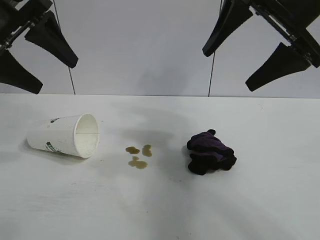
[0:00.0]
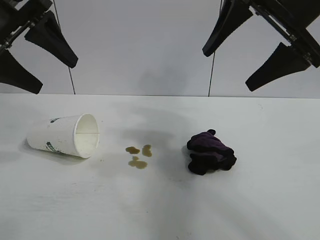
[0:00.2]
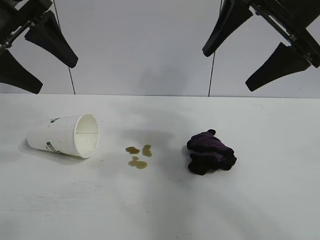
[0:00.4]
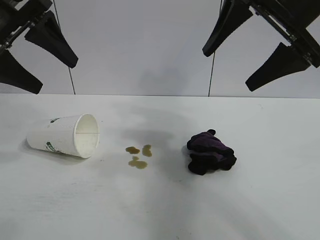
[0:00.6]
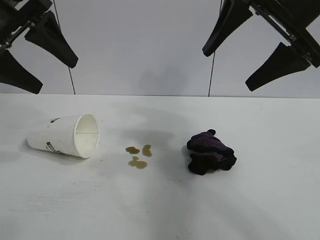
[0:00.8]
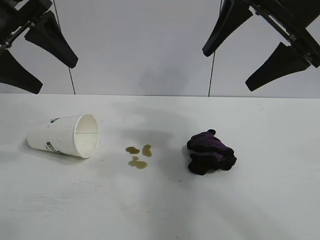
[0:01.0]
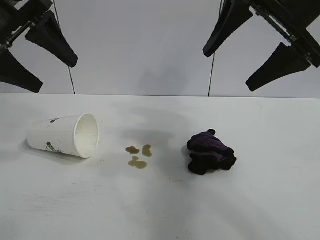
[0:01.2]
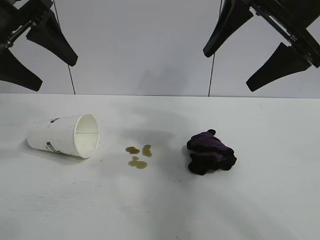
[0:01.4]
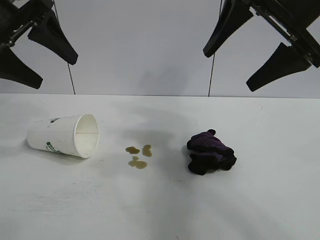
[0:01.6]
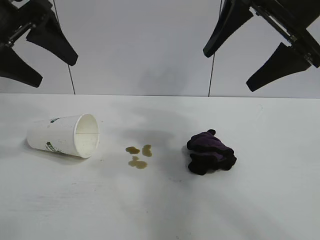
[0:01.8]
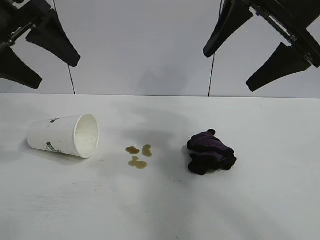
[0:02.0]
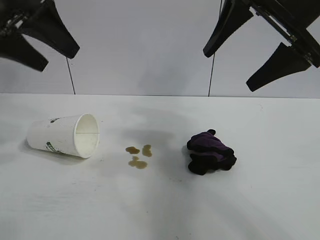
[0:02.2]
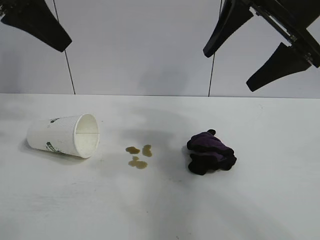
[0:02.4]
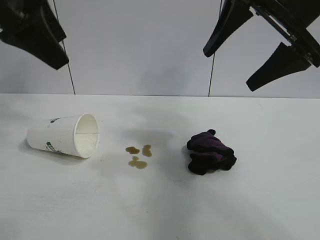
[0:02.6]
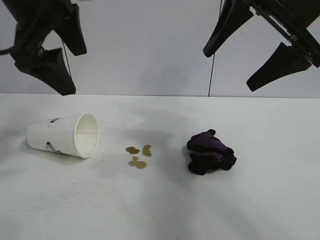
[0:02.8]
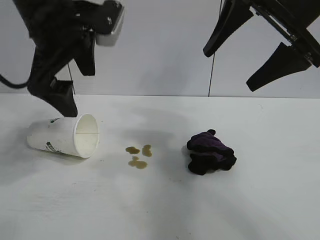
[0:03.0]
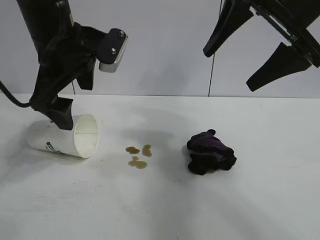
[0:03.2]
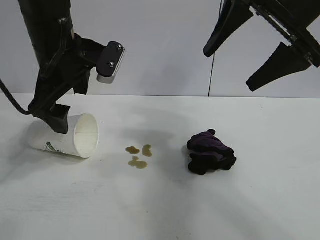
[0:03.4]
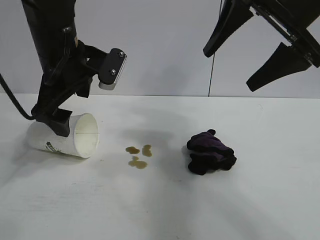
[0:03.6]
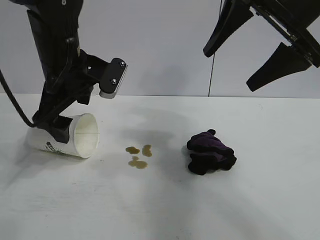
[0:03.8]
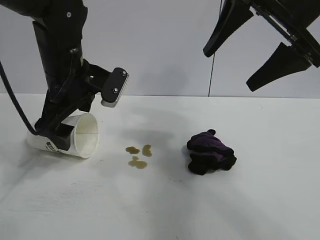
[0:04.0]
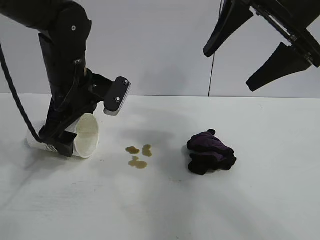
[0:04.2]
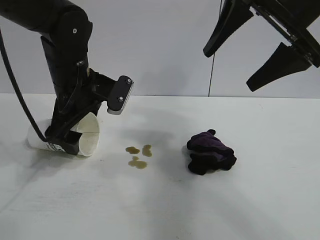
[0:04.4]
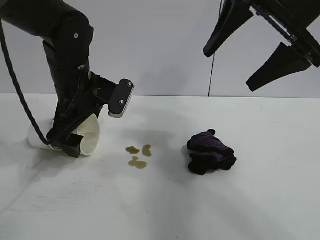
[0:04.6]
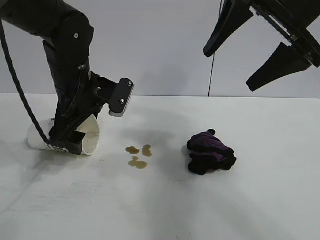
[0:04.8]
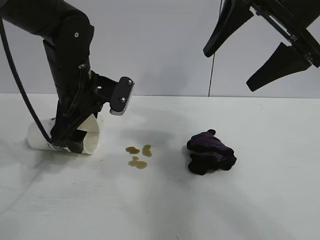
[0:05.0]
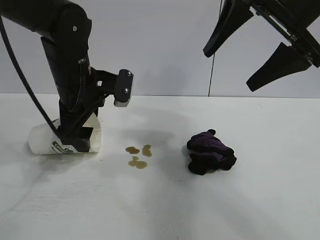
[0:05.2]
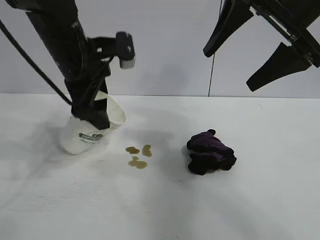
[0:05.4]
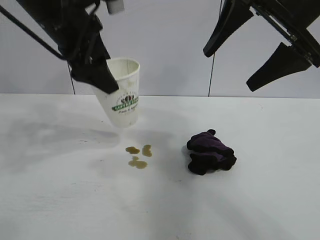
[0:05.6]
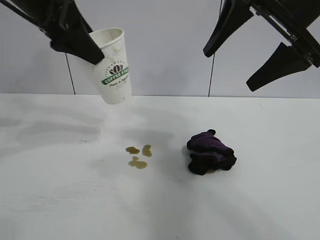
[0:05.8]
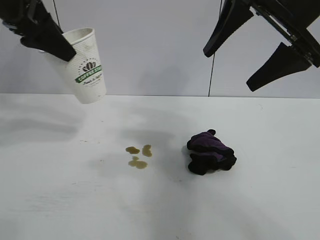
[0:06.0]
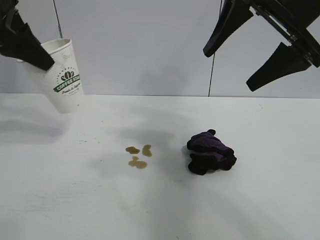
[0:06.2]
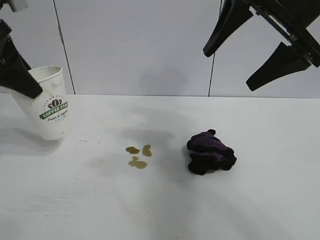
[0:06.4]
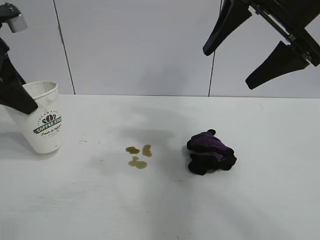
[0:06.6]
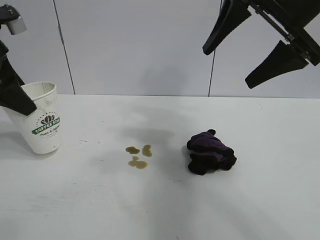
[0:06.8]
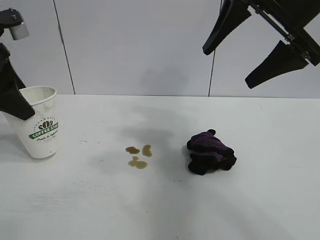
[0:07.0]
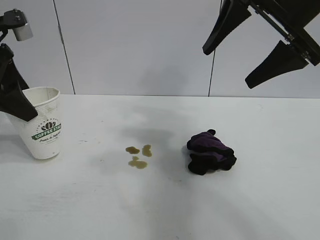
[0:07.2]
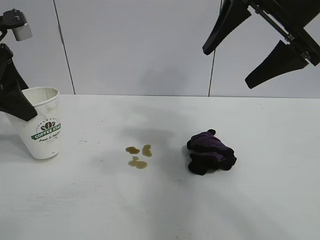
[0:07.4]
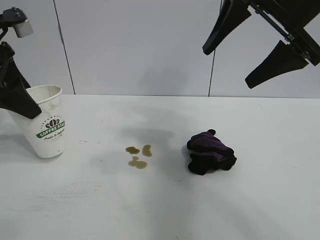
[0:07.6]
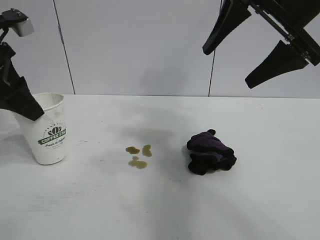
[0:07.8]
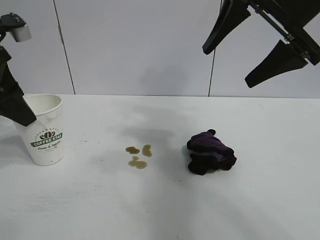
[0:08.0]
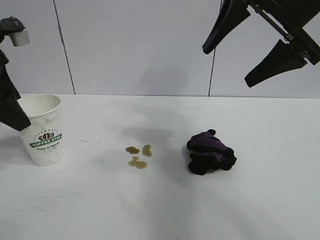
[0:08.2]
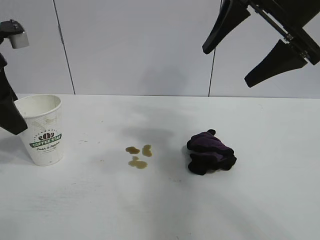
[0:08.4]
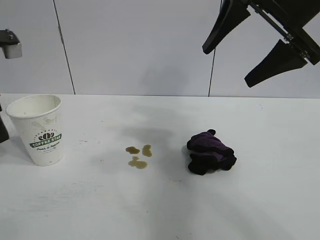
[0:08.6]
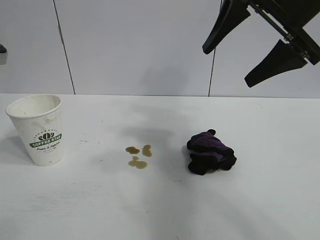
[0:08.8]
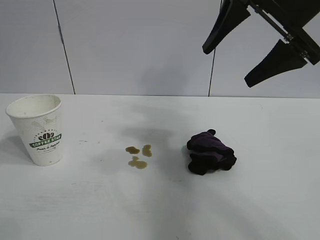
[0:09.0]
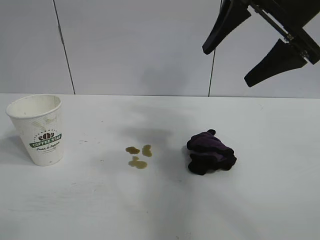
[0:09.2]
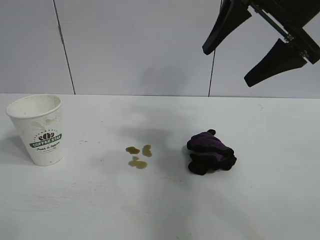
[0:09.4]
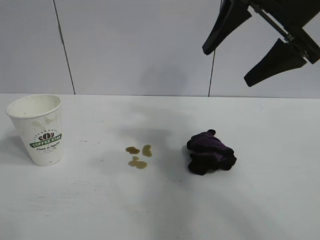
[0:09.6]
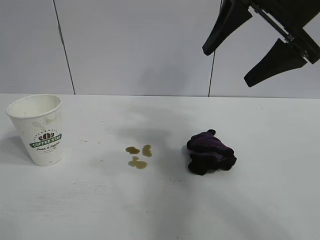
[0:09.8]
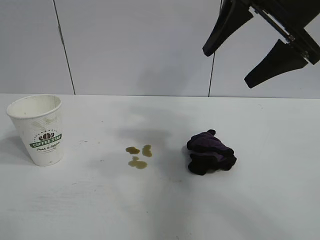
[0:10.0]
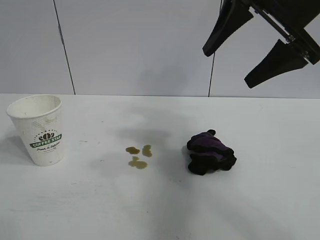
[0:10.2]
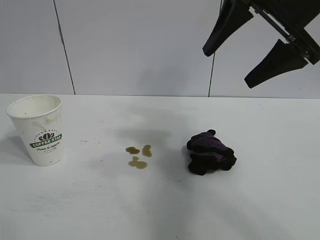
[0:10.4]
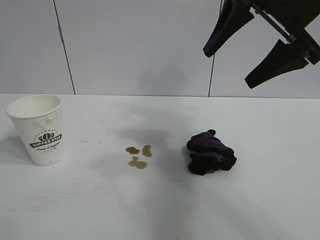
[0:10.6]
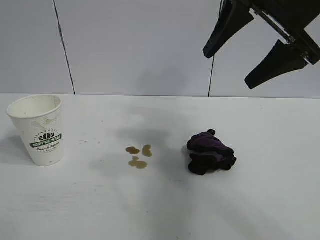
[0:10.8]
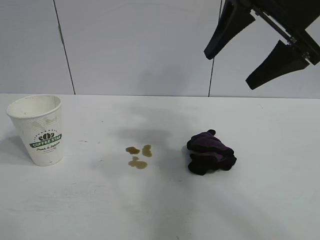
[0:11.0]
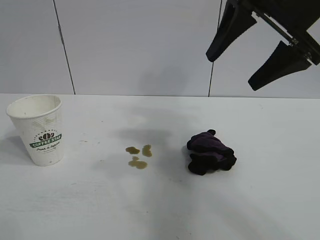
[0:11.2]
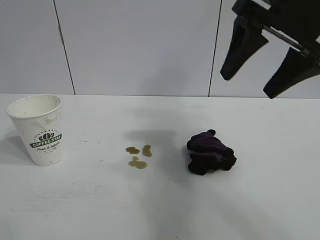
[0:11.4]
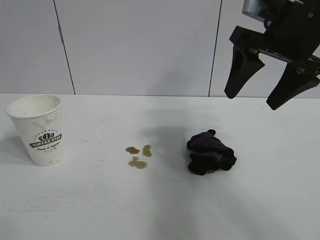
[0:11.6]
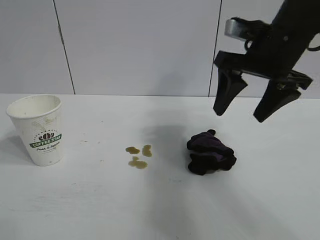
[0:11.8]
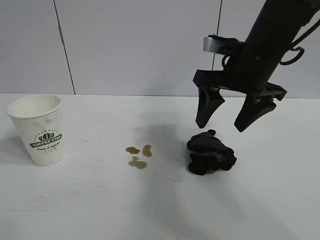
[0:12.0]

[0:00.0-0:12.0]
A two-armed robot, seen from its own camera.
Task of the whole recording: the left gripper pick up the fallen cup and place it upright, the right gripper grasp the black rag and wipe the stain on the table, the right gripper put the black rag back in its original position.
Step, 0:01.2 to 0:05.0: Grasp the paper cup with left gripper.
Step, 0:05.2 to 0:08.0: Stand the paper cup upright with left gripper.

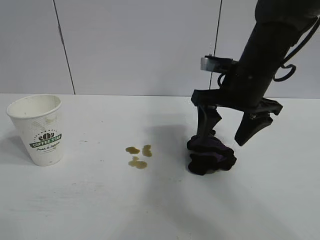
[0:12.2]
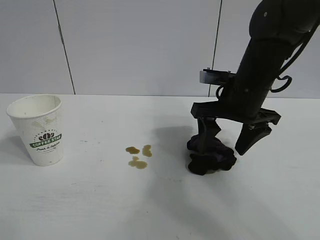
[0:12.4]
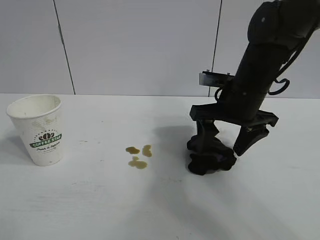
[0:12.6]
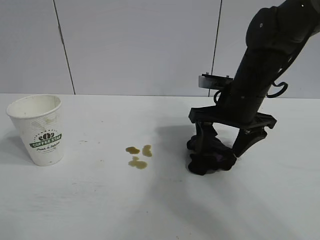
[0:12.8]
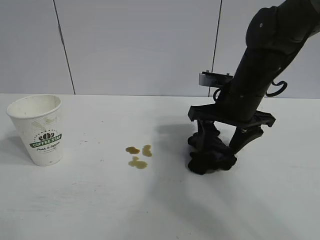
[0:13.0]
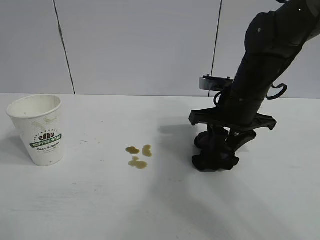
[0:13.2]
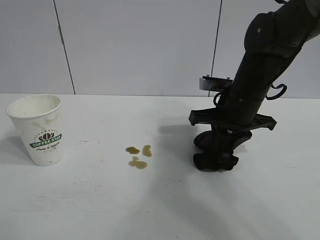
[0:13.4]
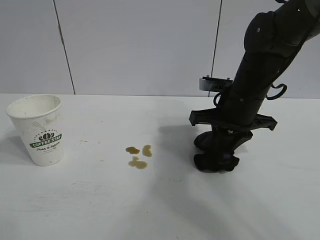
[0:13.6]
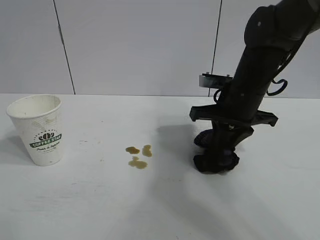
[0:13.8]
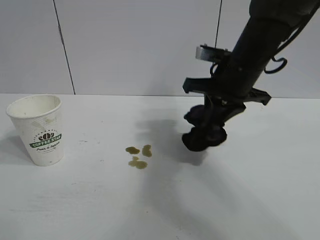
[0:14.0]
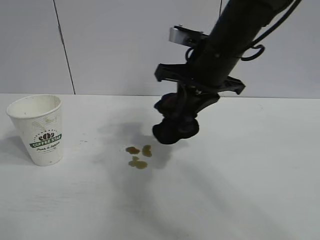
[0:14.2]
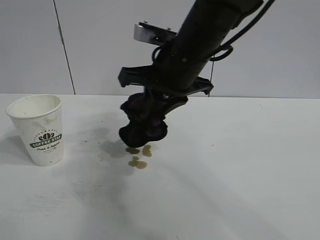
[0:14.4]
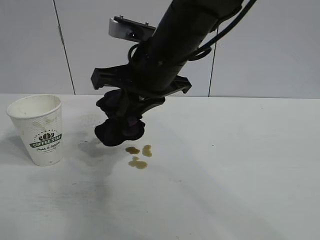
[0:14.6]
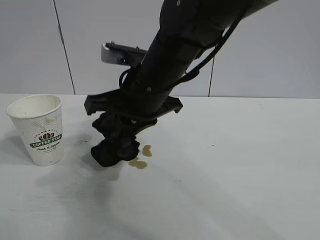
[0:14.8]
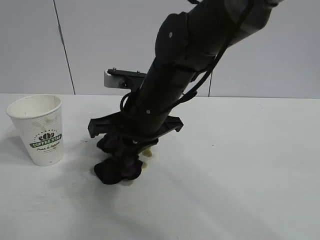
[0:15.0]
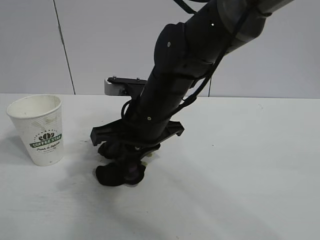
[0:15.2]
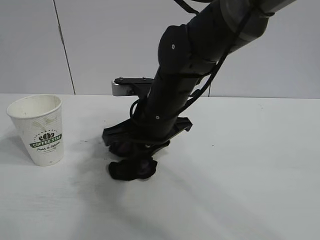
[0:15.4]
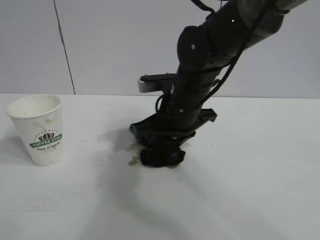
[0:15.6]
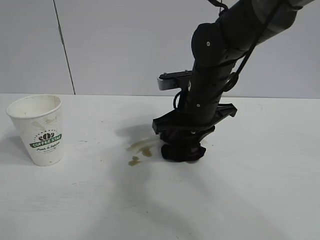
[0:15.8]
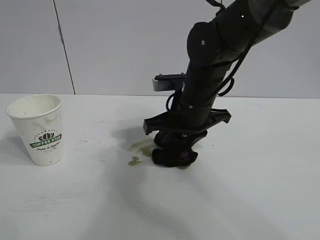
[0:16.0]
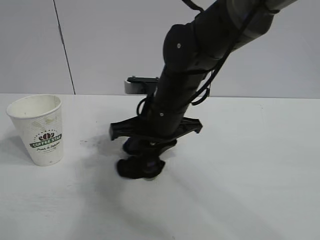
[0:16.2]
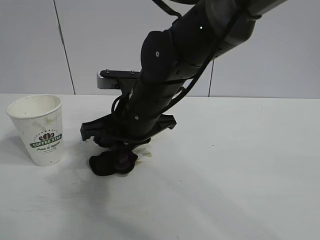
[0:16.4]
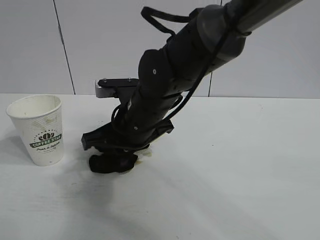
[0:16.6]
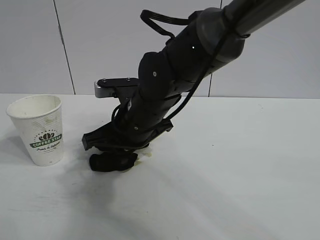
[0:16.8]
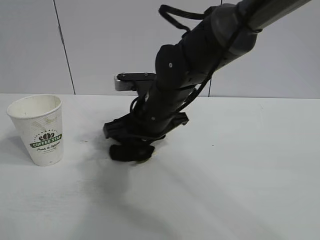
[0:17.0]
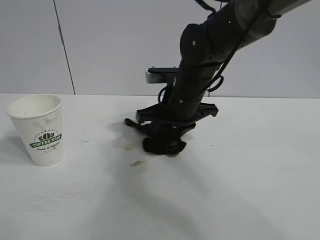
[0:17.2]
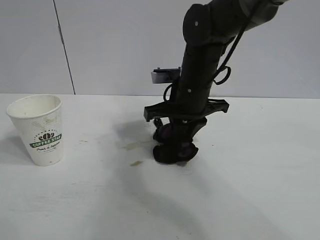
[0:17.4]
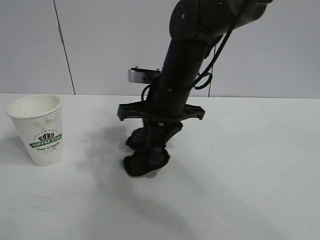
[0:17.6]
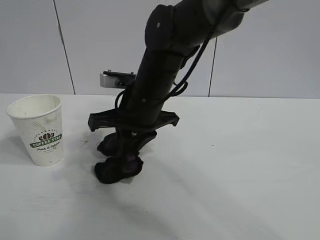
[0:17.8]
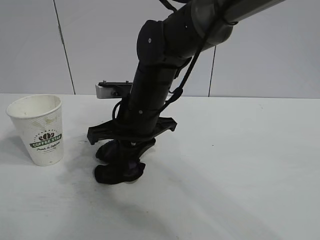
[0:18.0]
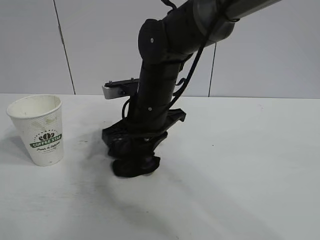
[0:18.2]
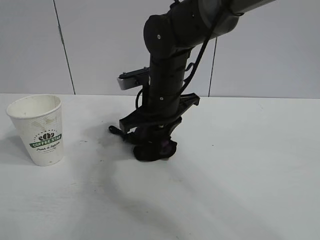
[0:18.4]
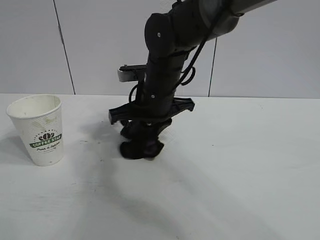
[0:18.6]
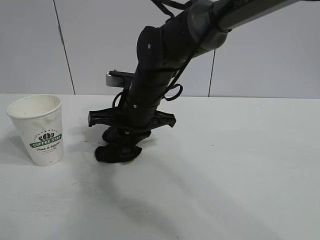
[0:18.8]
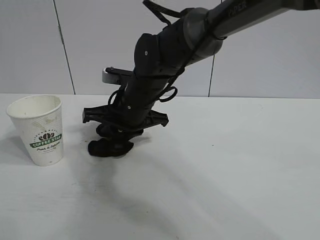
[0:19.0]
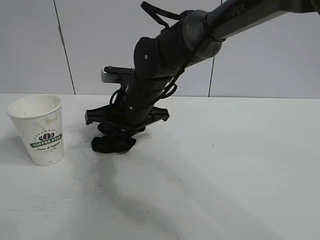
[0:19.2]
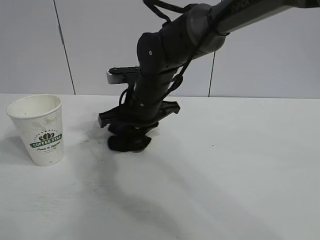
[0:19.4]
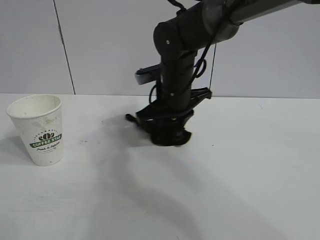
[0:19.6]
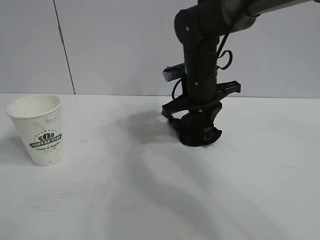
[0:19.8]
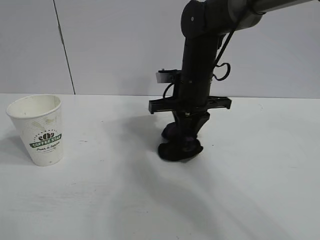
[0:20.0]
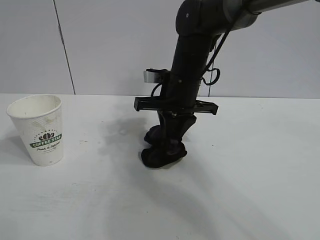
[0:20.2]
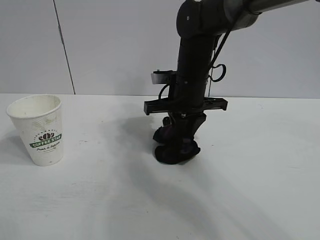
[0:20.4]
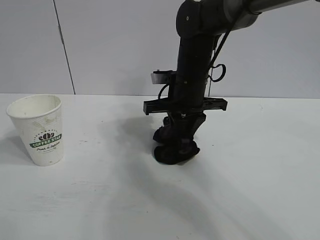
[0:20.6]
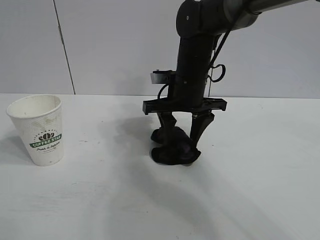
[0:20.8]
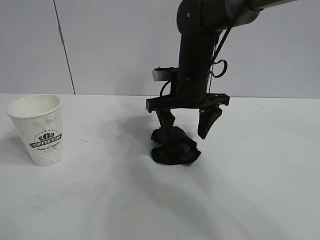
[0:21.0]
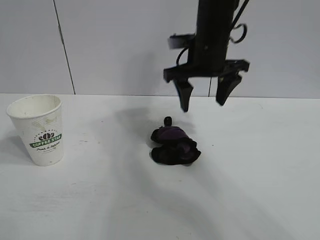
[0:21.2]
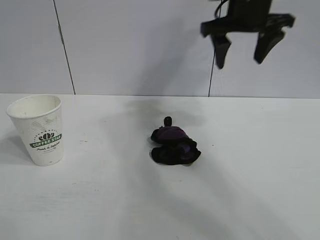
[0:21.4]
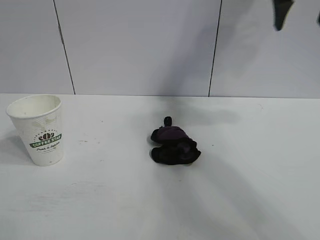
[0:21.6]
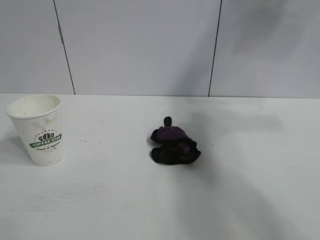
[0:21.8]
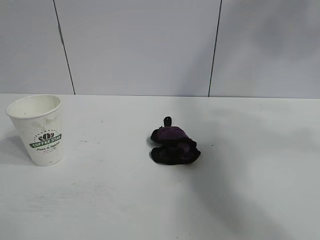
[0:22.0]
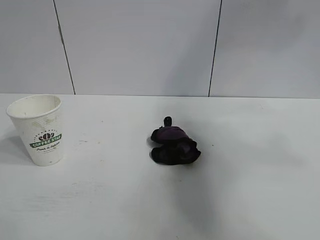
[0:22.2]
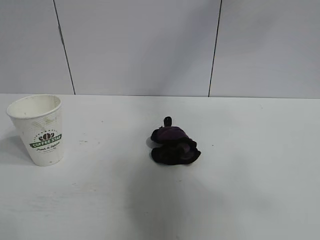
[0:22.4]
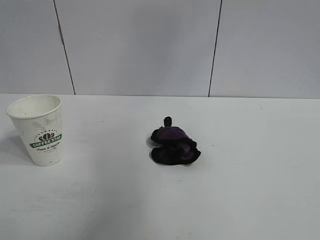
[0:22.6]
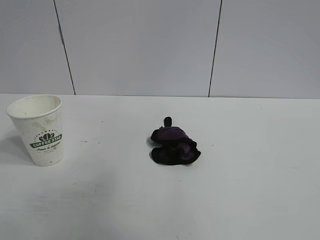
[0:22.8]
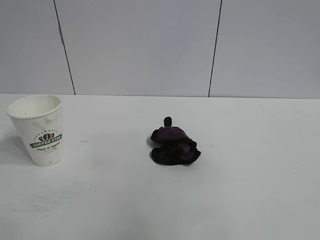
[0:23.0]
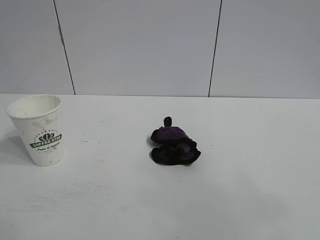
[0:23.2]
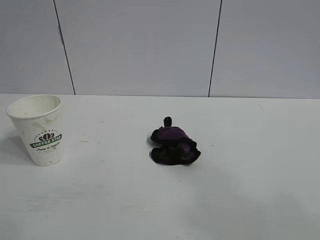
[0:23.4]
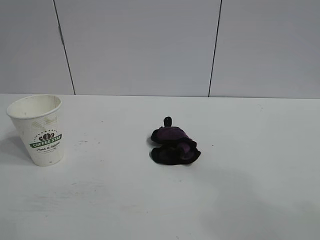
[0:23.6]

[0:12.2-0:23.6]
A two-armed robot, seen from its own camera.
Task of the whole recording: the left gripper pick up the fallen cup and place it upright, the right gripper grasp the black rag and wipe the stain on the table, the right gripper put the black rag back in its original position.
Step, 0:13.6 to 0:20.4: Wipe the stains off the table with the rag with right gripper.
